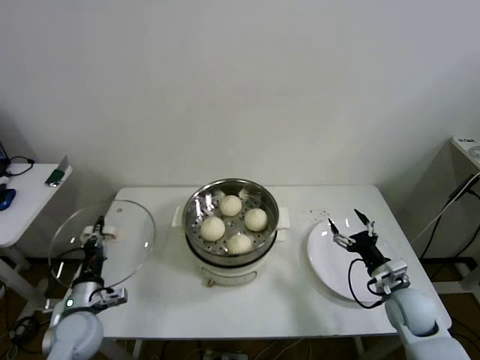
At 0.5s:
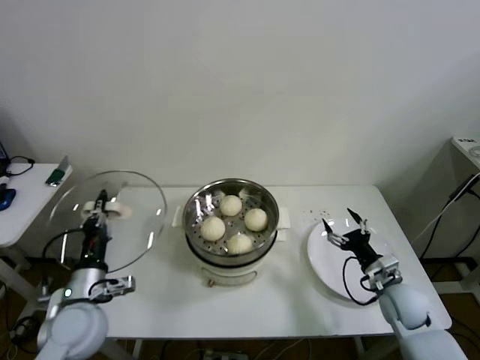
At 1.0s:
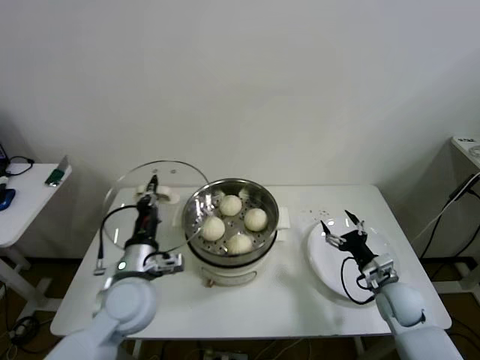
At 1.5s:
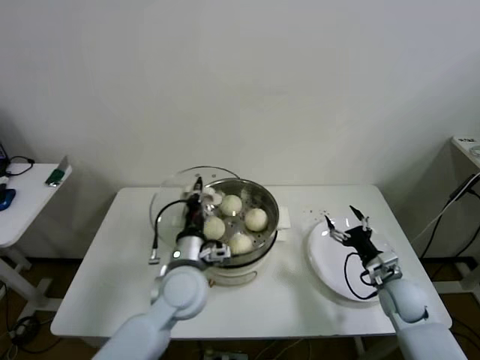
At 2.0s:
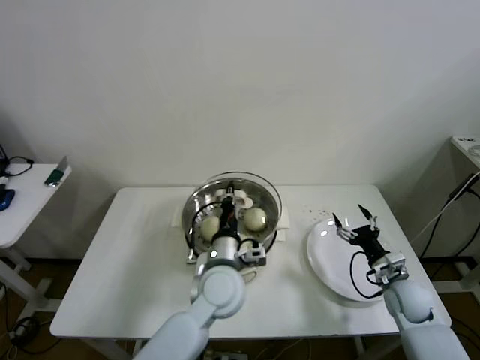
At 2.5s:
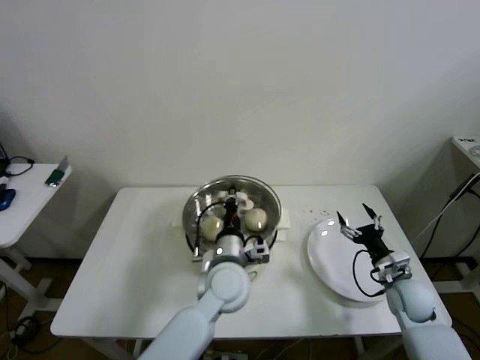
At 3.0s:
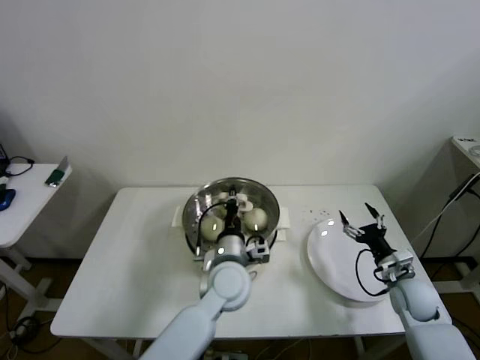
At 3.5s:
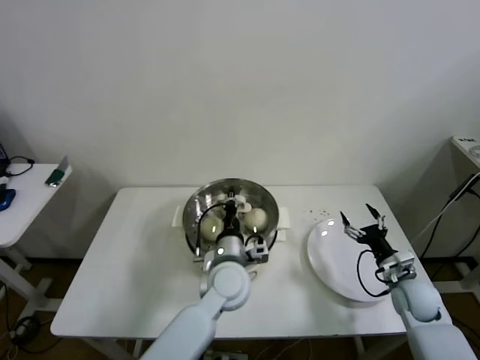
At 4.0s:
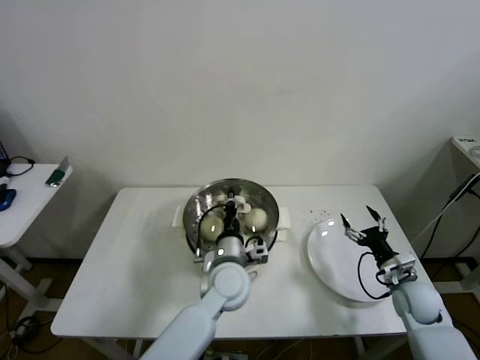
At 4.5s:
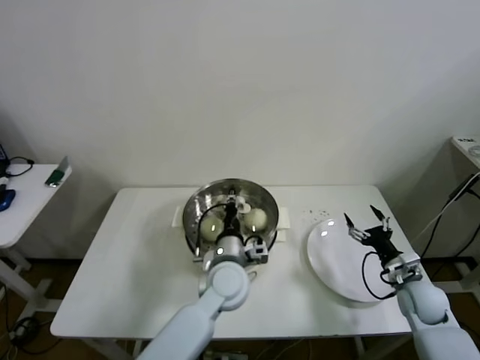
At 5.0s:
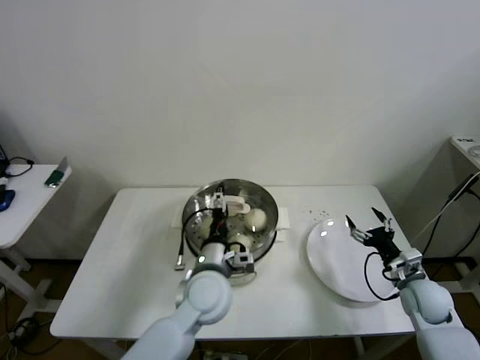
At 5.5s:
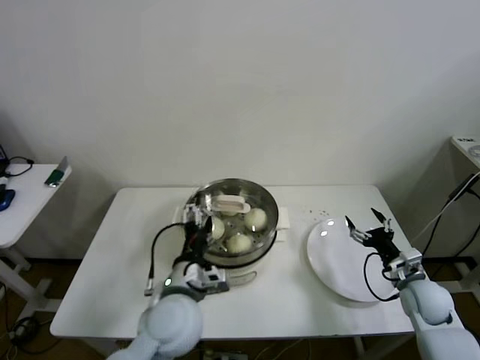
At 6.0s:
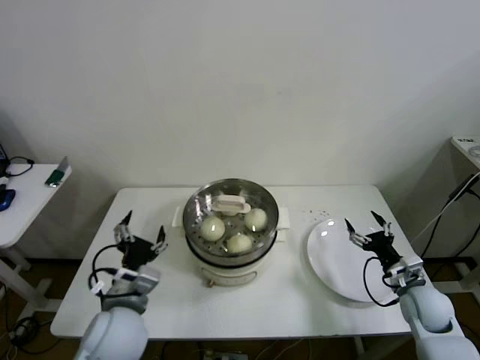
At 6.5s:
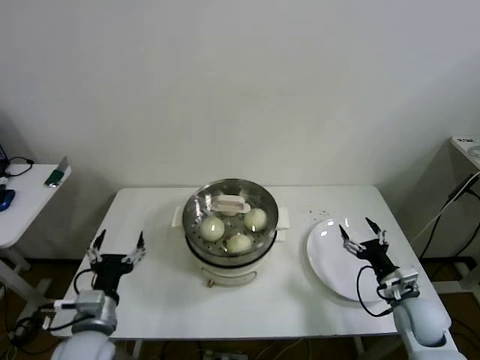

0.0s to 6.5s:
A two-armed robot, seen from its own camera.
Step, 0.0s to 5.0s: Place the pot lid on the steamer with left gripper.
0.0s to 2.0s: The left gripper travels to the right by some 30 cm.
2.0s to 4.5s: There are only small adjustments of the grippers.
4.5s to 6.5s: The left gripper moves to the left and backward, some 30 cm, and opens.

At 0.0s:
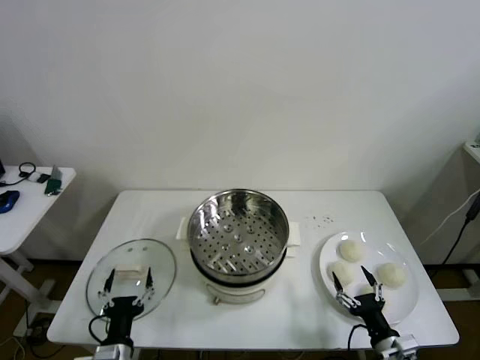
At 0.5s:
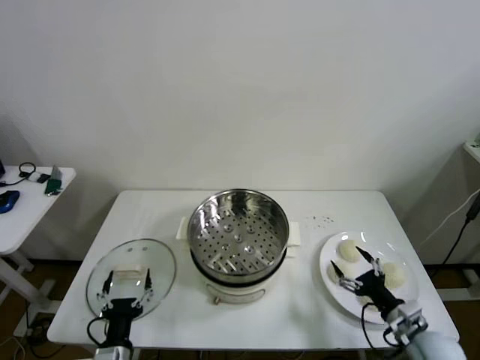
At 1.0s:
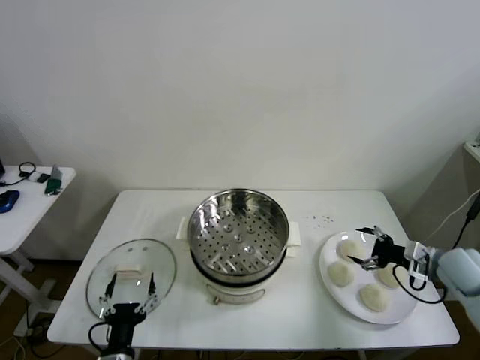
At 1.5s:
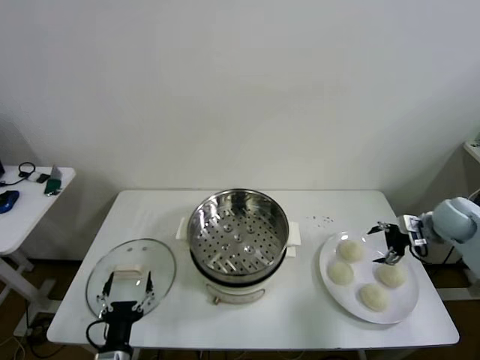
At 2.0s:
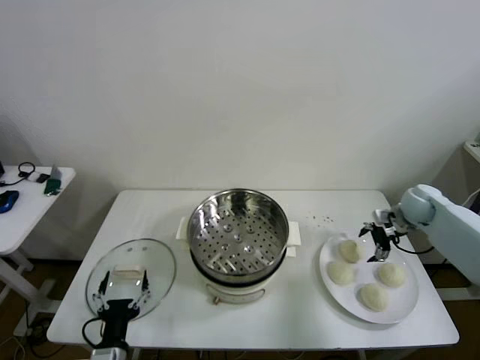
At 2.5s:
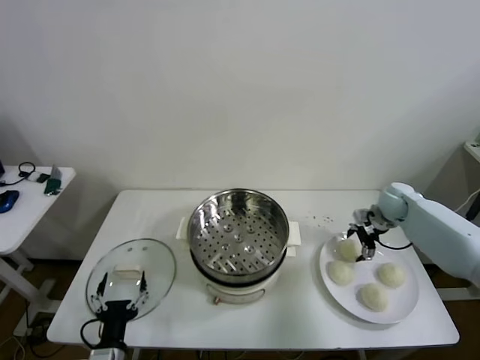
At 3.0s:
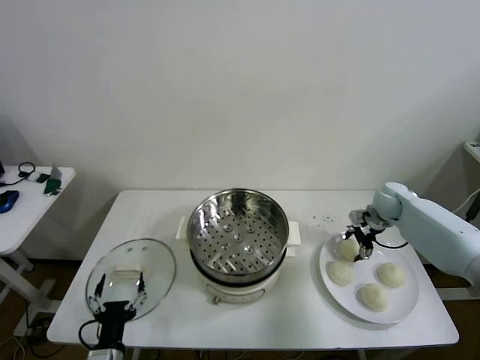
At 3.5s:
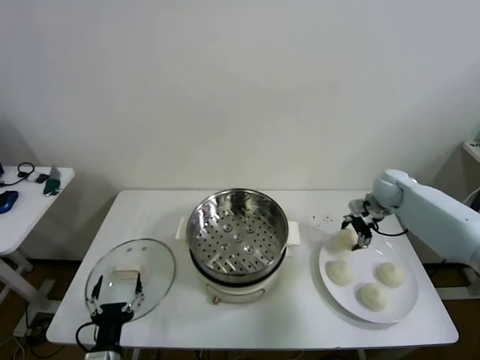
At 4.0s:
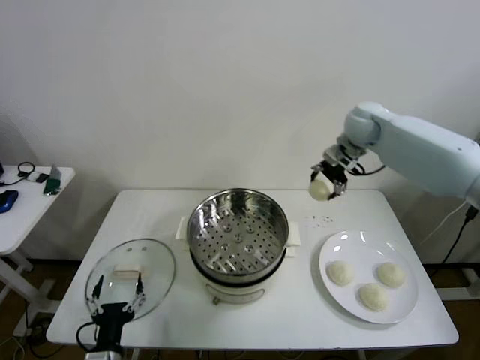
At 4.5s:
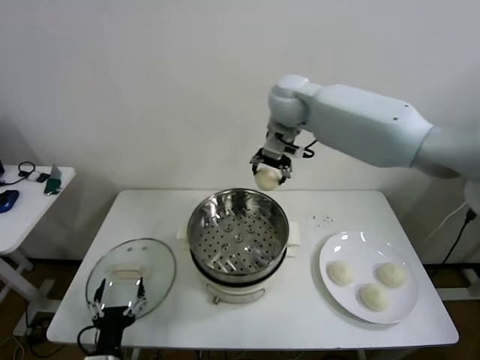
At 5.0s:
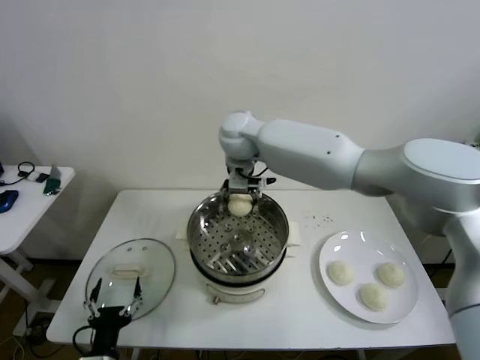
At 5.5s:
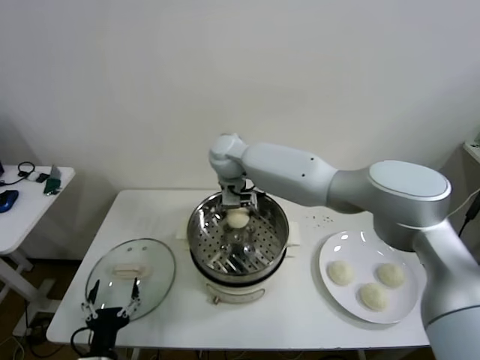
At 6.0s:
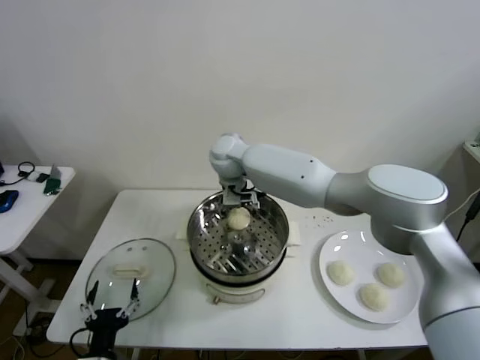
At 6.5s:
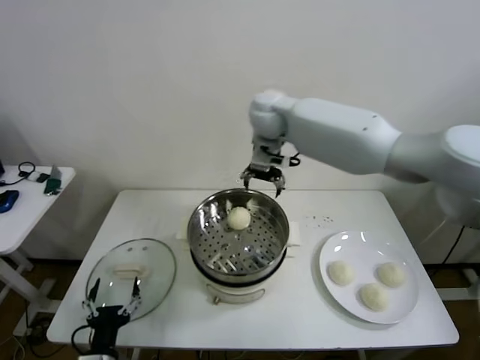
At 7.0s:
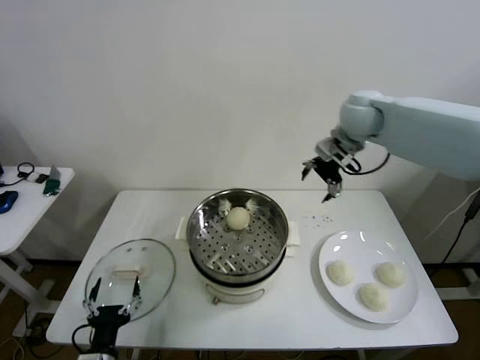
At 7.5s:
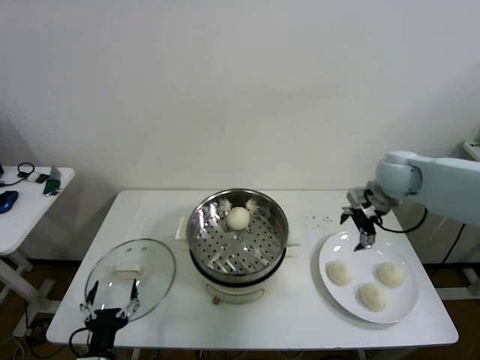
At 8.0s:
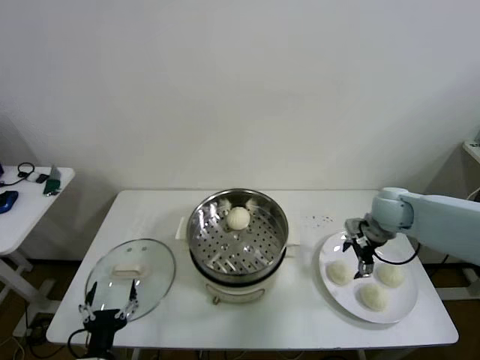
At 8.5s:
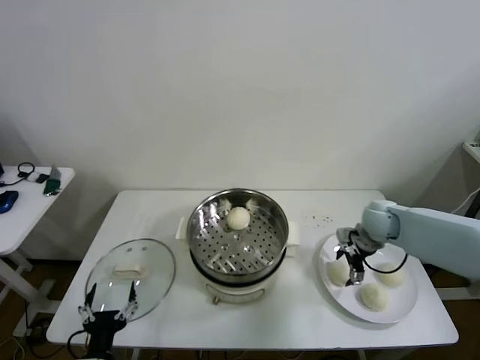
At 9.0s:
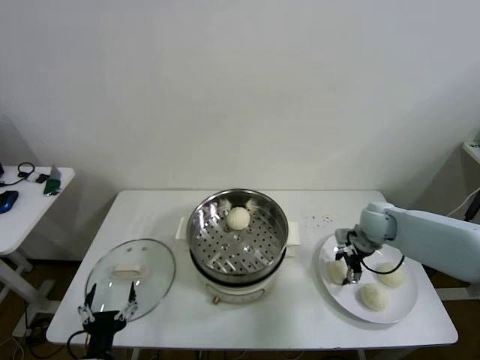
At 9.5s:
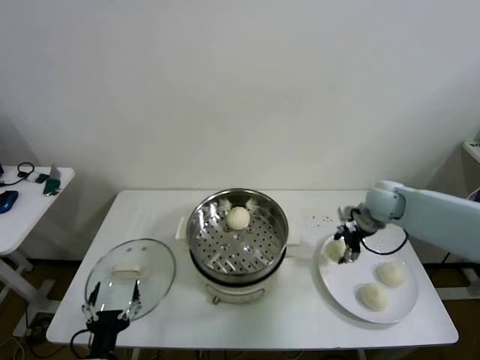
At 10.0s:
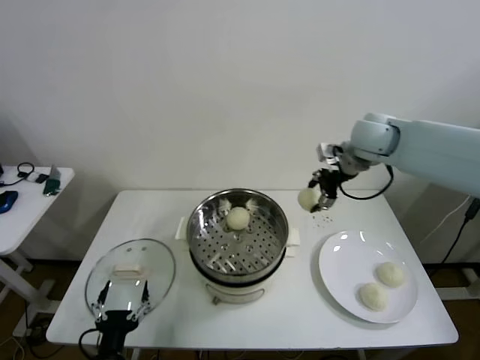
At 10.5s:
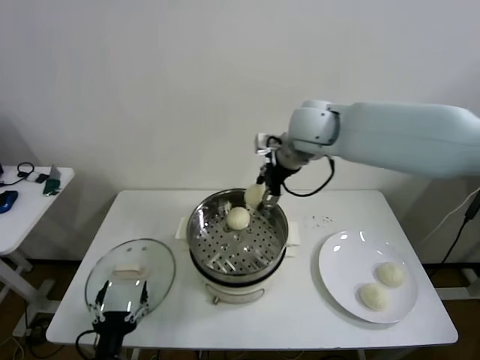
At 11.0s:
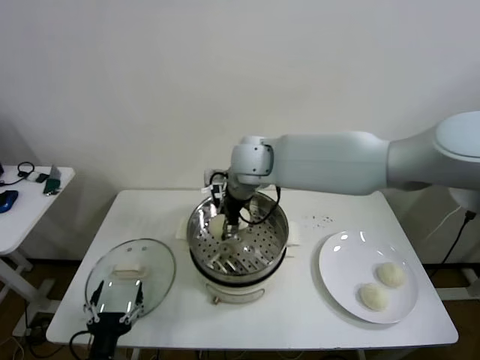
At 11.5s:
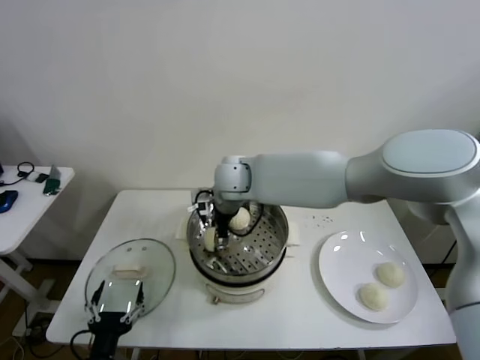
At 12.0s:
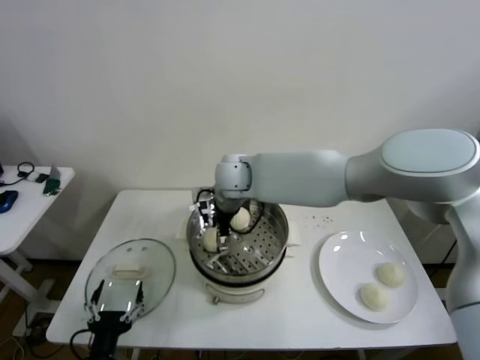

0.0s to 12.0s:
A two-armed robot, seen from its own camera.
Step, 0.0s to 3.0s: Grasp the baozi in the plate with right gripper.
Step, 3.5s to 6.0s: Place the baozi on the steamer with right gripper.
Step, 6.5s to 9.0s: Grasp the baozi in the plate with right gripper.
Step, 9.5s to 11.5s: Place the baozi on the steamer with right gripper.
2.0s to 4.0s: The right gripper goes roughly 30 cm upward, to the left and forward, and closes up.
4.0s to 6.0s: The right gripper travels to the left by some 30 cm, and opens.
6.0s to 8.0s: The right gripper moves to the right, about 40 cm.
8.0s to 10.0s: The right gripper moves upward and to the left, roughly 20 cm, and closes up.
10.0s to 12.0s: The right gripper is displaced to the left by some 30 cm, and opens.

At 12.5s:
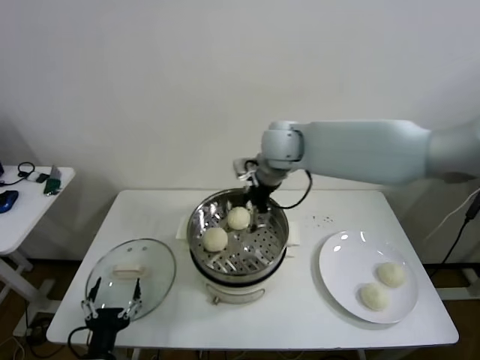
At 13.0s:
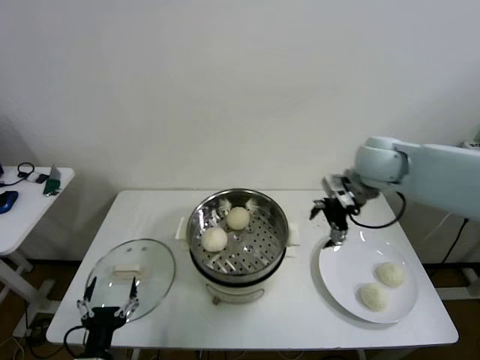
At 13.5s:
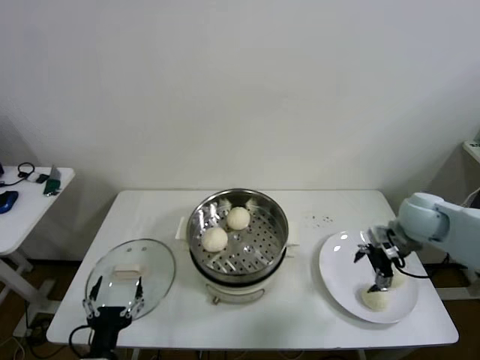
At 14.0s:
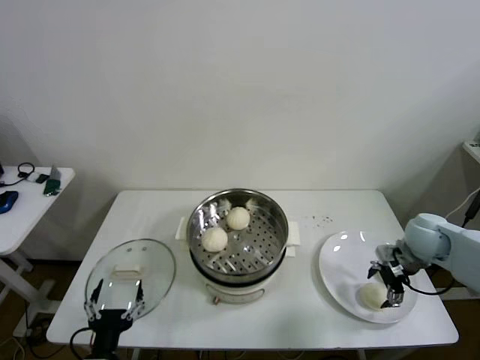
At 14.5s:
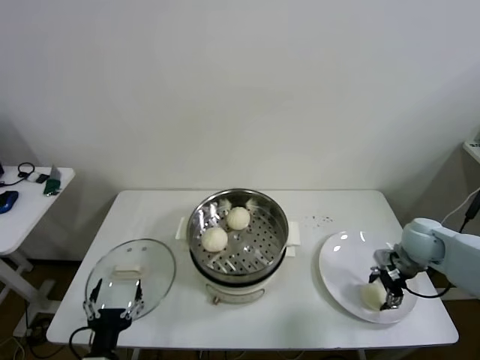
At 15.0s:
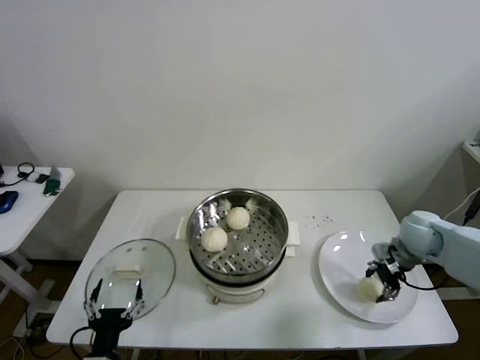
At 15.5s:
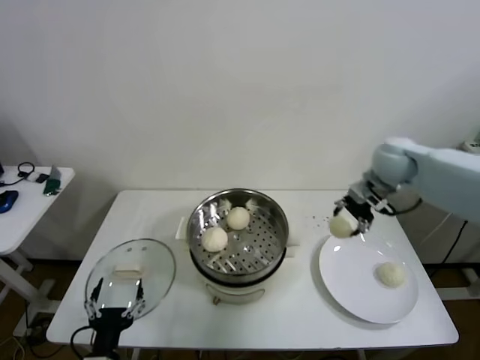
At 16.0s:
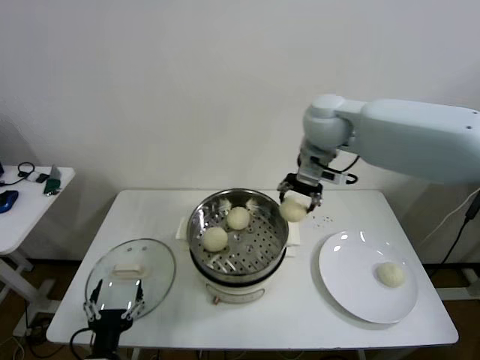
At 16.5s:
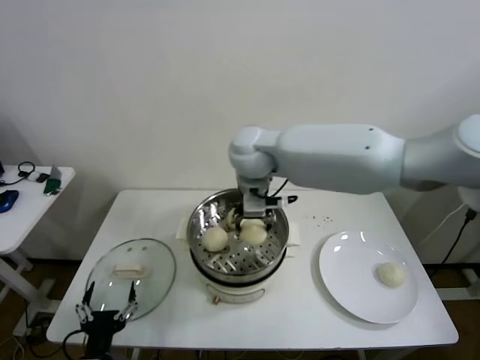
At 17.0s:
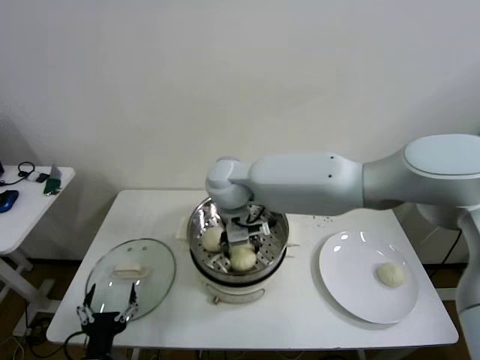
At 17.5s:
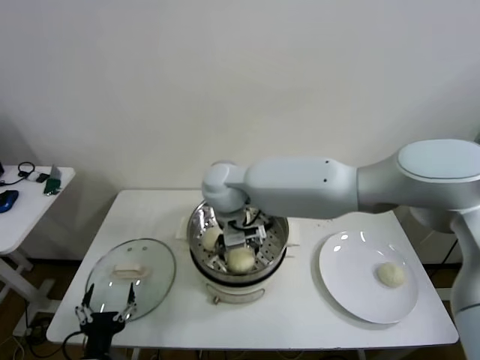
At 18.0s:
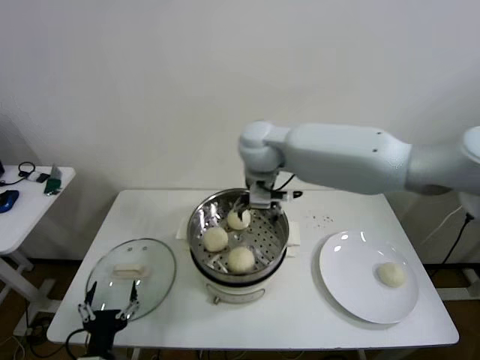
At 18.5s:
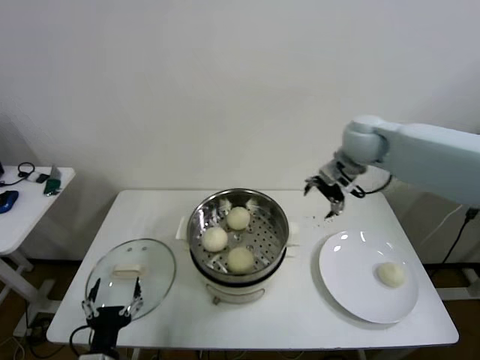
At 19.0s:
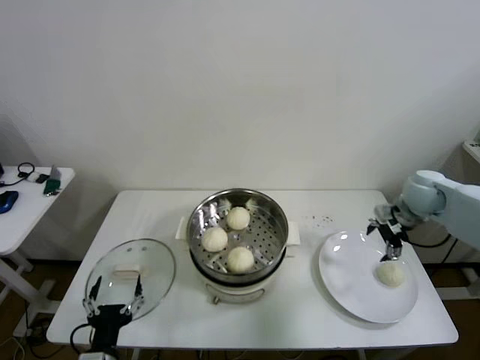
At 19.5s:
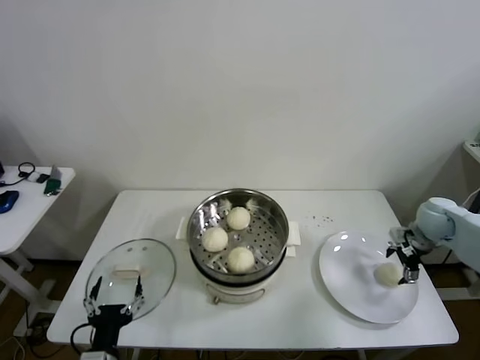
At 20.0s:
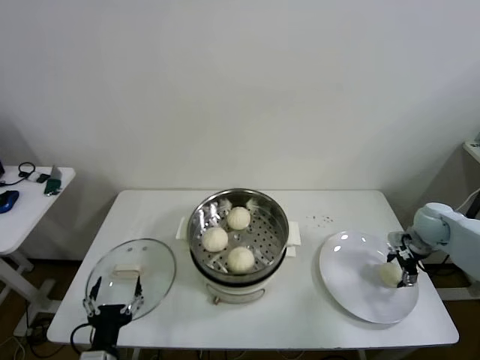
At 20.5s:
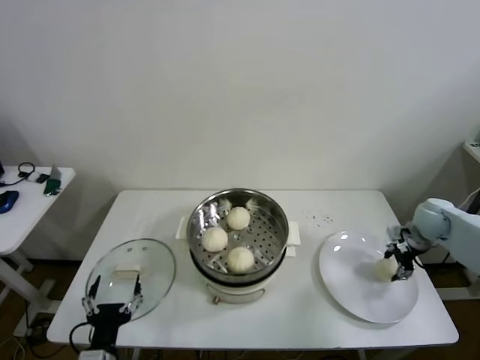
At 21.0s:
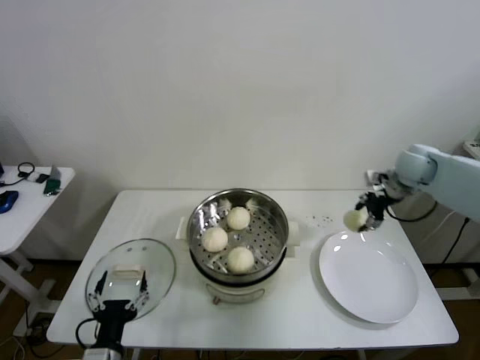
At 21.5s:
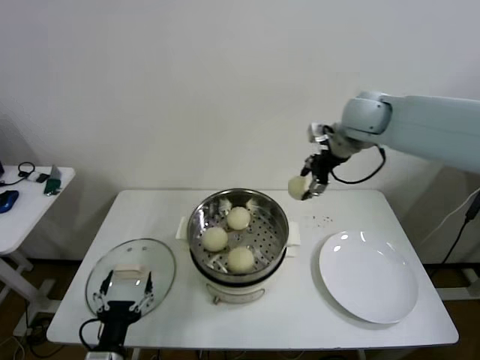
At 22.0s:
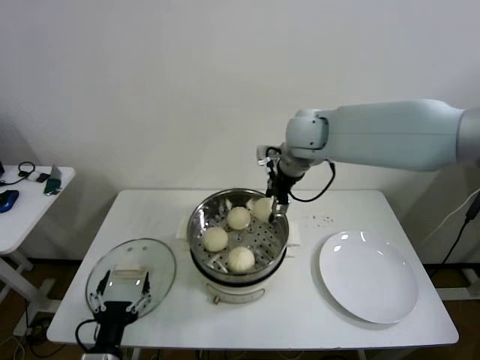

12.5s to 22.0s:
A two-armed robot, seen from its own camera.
Step, 12.5s to 14.5s: Grasp the baozi in the plate with right gripper.
Step, 15.0s to 17.0s: Place the baozi on the steamer with right gripper.
Step, 17.5s to 20.0s: Grasp the baozi in the plate with right gripper.
12.5s to 14.5s: The right gripper shifts roughly 40 cm to the right and downward, and closes its fingers.
14.5s to 16.5s: The right gripper goes roughly 50 cm to the left and upward.
16.5s to 18.0s: The right gripper opens up.
18.0s to 20.0s: The right gripper is displaced to the right and downward by about 50 cm.
20.0s to 22.0s: The right gripper shifts about 40 cm to the left and upward, and closes its fingers.
